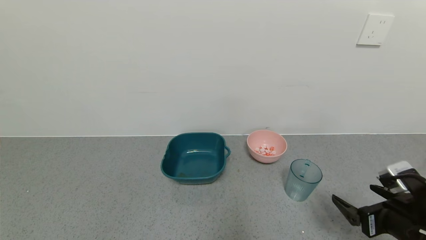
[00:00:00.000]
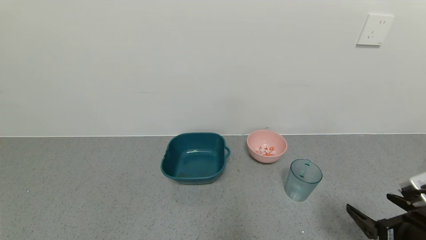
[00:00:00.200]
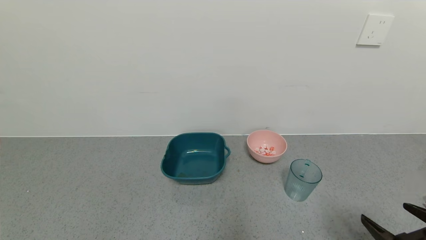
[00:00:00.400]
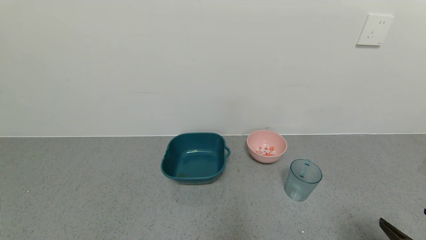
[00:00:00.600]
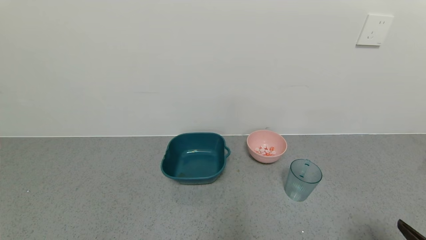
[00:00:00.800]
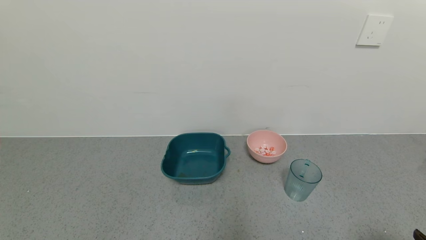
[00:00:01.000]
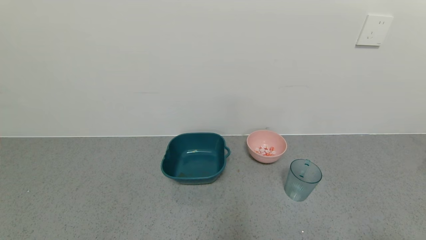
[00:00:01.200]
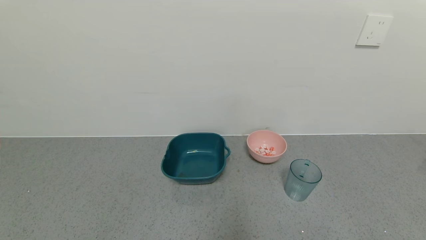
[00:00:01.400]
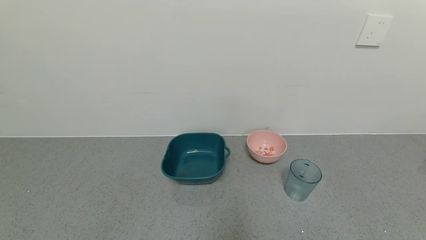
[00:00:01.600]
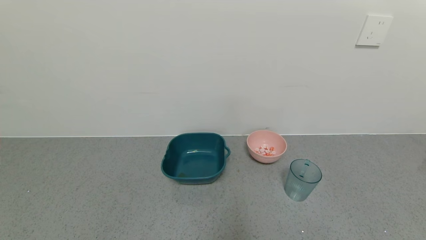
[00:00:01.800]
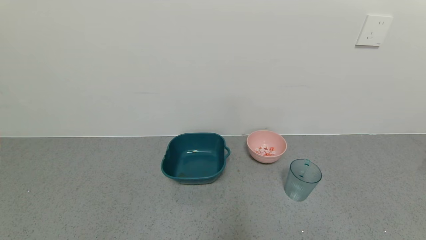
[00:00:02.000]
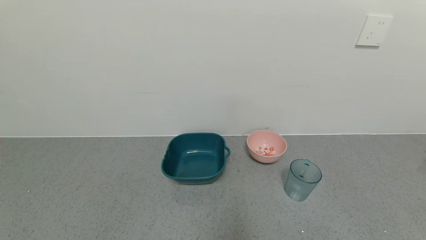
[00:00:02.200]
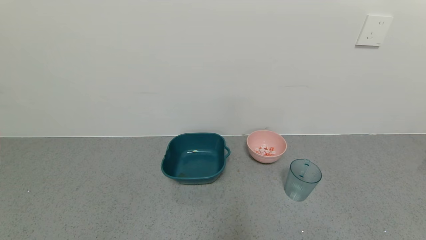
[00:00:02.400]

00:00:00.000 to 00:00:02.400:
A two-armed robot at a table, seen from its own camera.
Task of the whole recording: use a gripper to pick up the cup and pour the solid into a bowl or tray.
00:00:00.000 to 00:00:01.200: The right gripper moves backward and to the right, roughly 15 cm.
